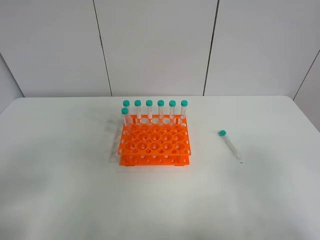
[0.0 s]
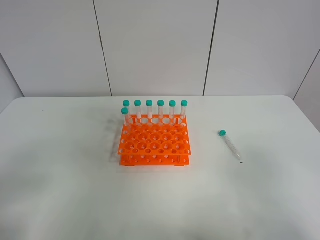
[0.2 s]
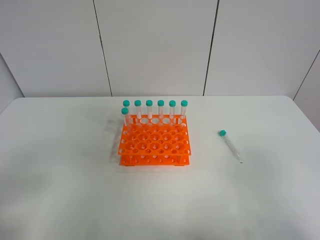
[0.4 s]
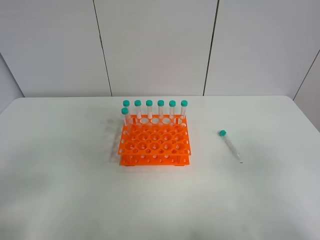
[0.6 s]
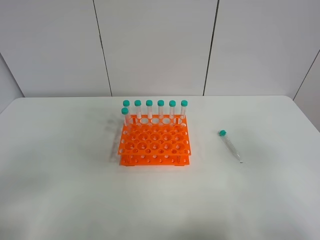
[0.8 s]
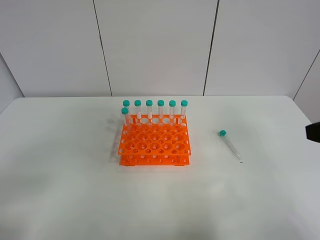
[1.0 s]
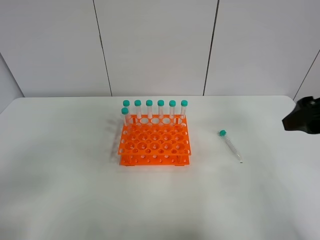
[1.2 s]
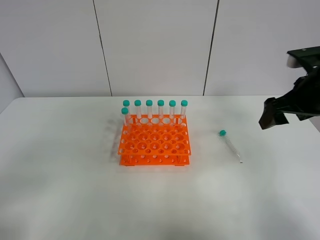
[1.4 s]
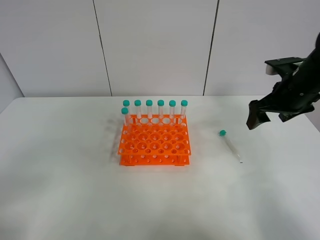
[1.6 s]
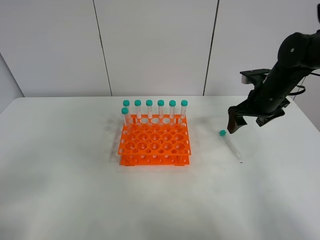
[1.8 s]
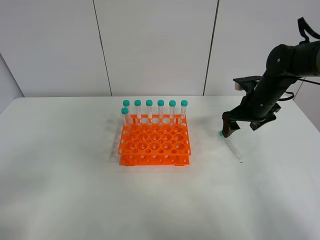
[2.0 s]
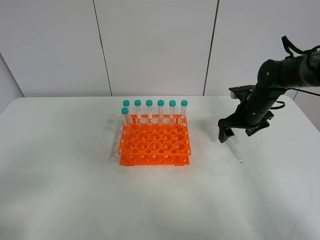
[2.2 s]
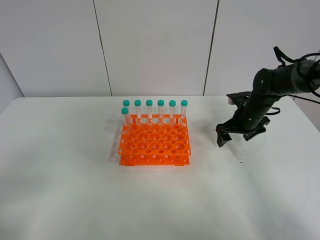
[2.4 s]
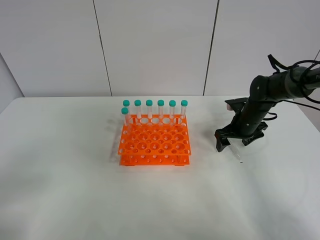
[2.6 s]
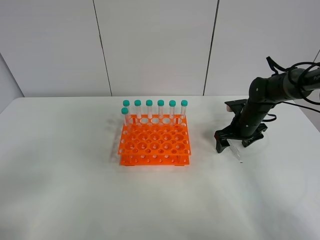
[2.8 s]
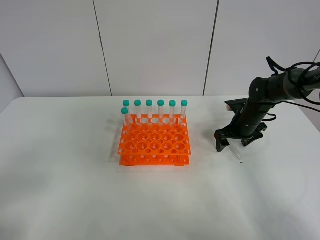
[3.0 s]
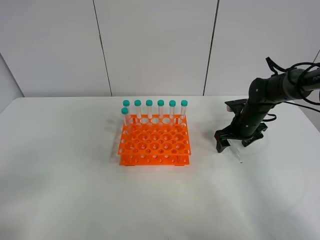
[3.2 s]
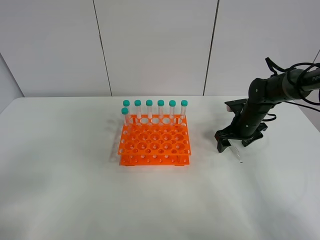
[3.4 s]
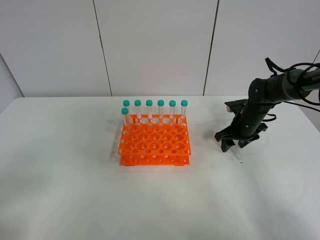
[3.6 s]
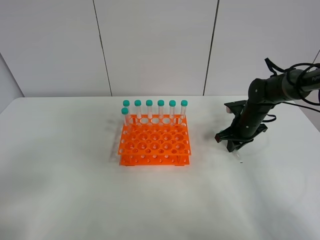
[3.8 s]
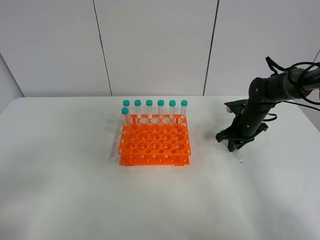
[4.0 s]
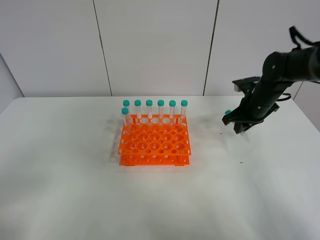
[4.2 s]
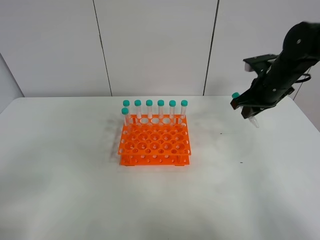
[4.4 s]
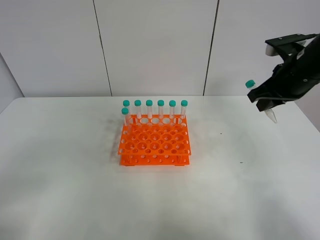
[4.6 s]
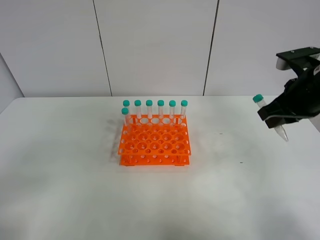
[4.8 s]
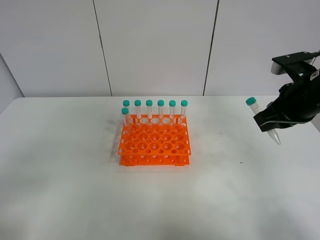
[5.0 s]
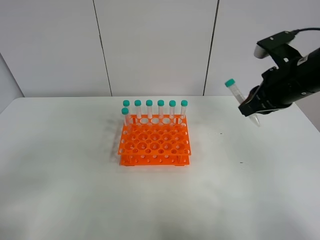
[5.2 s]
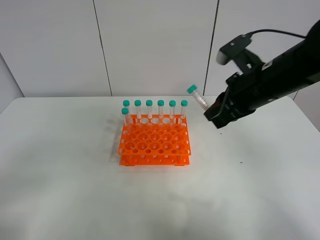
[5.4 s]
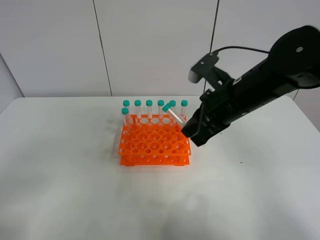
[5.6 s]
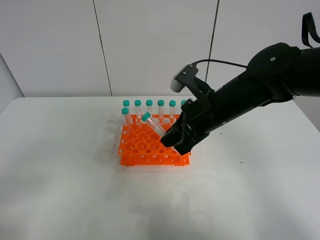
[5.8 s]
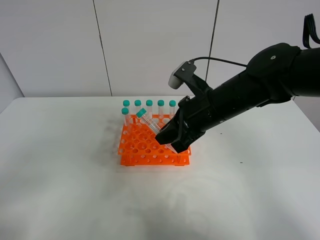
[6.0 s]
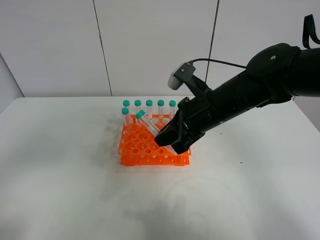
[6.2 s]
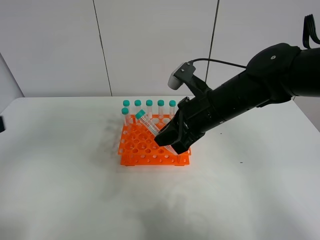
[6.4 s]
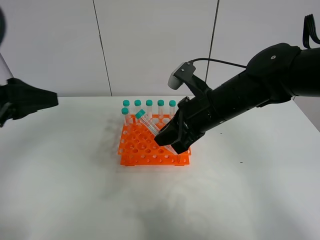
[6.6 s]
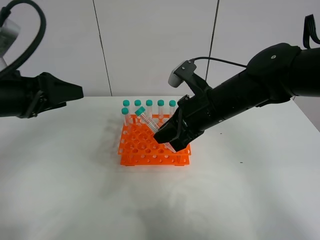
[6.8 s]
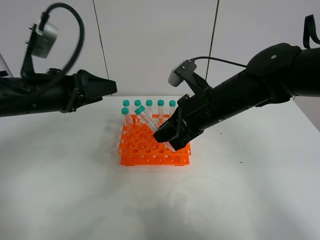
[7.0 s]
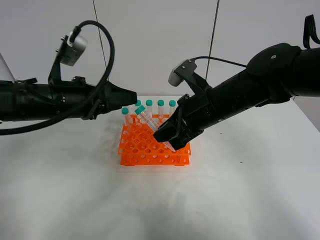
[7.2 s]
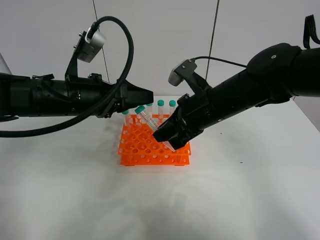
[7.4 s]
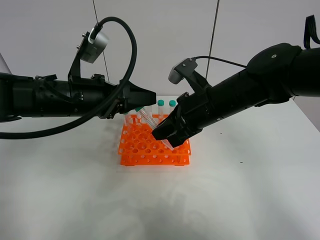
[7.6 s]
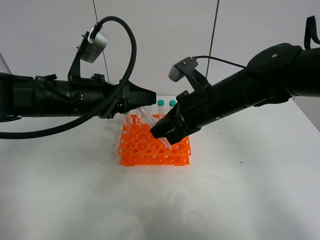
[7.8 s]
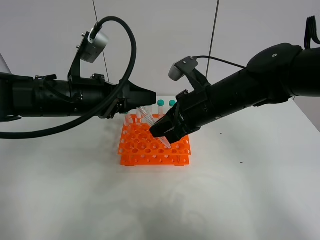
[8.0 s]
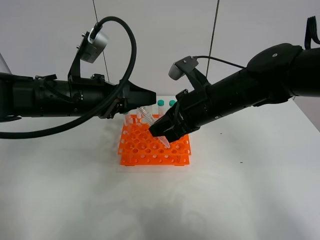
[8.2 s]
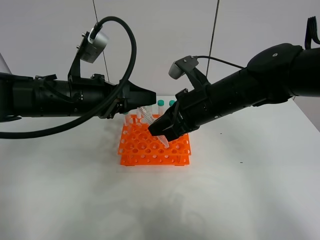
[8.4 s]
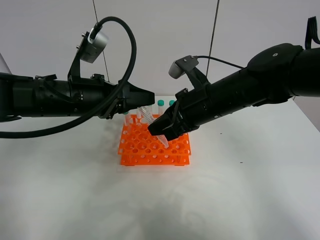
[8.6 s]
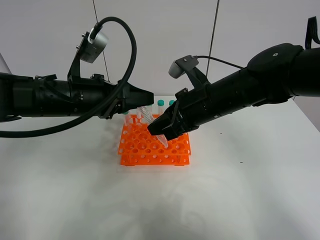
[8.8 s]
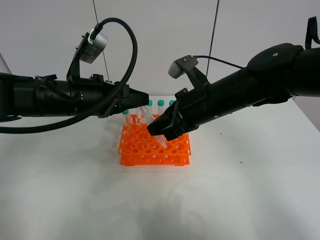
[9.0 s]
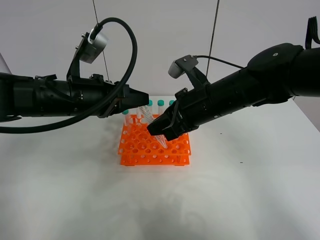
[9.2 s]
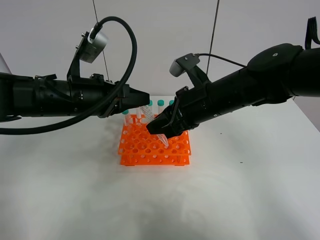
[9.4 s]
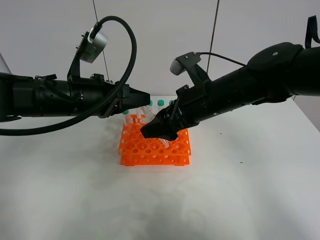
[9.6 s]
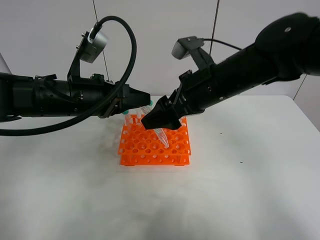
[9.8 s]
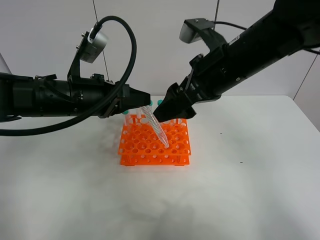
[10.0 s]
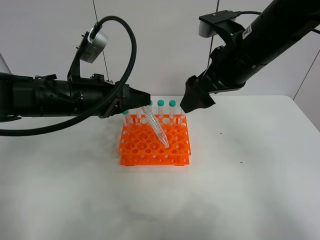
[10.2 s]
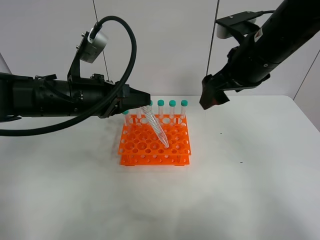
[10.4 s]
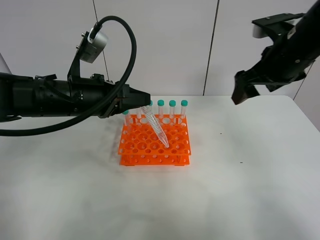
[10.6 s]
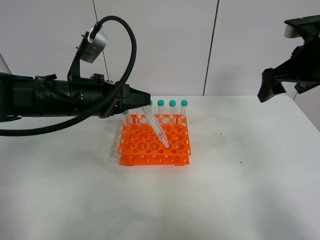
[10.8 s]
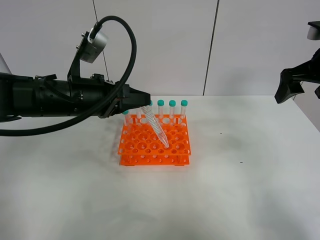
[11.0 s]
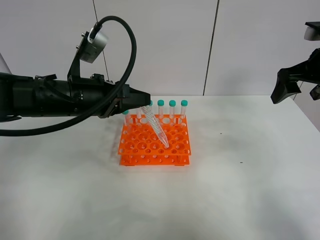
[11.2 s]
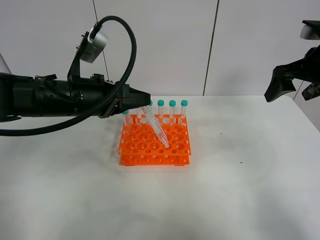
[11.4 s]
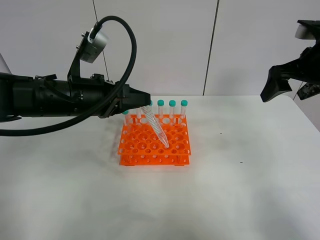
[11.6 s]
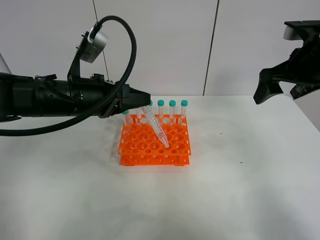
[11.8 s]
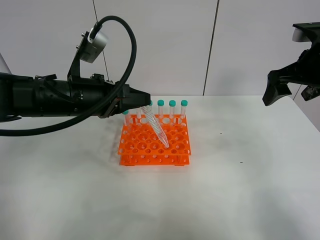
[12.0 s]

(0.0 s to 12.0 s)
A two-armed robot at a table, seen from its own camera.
Task of the whole recording: Put the test tube on the table back onto the test tube rack.
Step, 0.0 s - 4.0 s: Pick up the test tube with the right gripper.
Step, 4.2 s - 9.6 s: Move the test tube from the right gripper to the left gripper.
0.0 s - 1.6 s: The right gripper goes about 35 cm forward.
1.6 s - 3.0 s: The right gripper travels downward and forward by some 15 cm.
3.0 s - 4.4 s: The right gripper shifts some 15 cm upward, and closes.
4.4 s - 6.0 s: The right gripper moves to the left and backward, some 20 cm.
6.0 s - 7.6 s: The left gripper is displaced forward and to the right by approximately 30 cm.
7.6 s - 9.0 s: The left gripper closes up.
9.0 s - 10.4 s: The right gripper is displaced upward and to the right by about 10 cm, and opens its fingers.
10.4 s - 12.0 s: The right gripper shifts some 10 cm to the right.

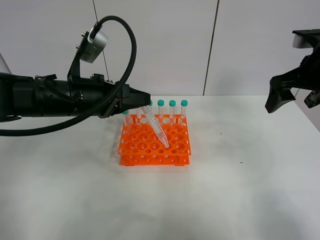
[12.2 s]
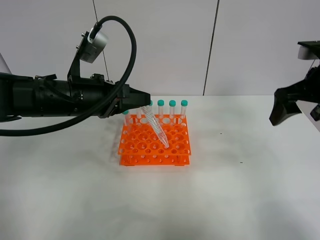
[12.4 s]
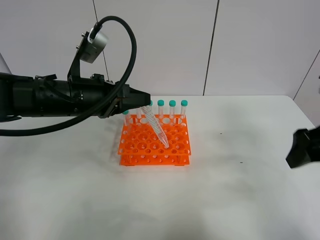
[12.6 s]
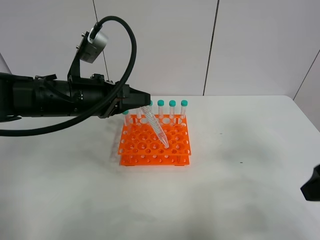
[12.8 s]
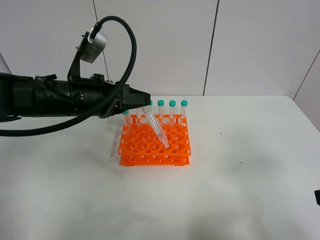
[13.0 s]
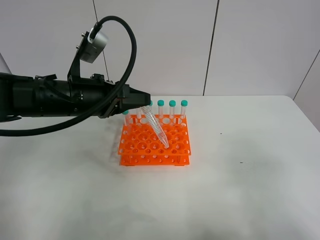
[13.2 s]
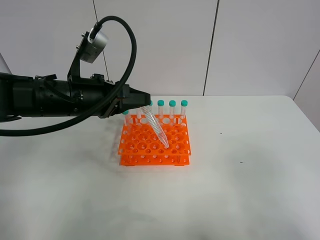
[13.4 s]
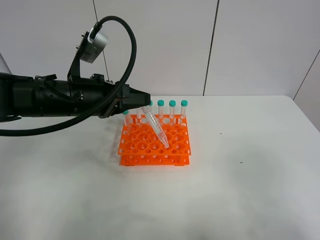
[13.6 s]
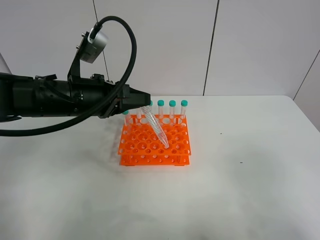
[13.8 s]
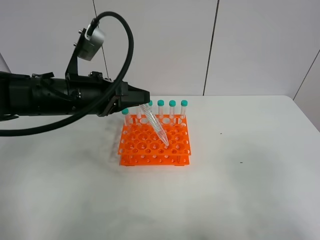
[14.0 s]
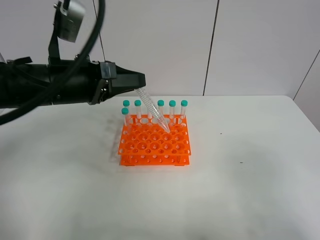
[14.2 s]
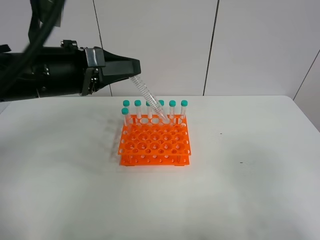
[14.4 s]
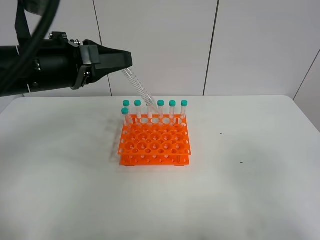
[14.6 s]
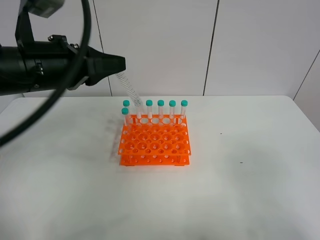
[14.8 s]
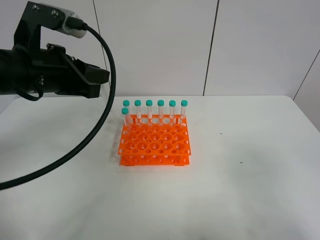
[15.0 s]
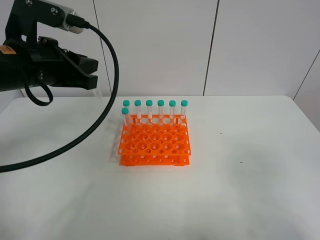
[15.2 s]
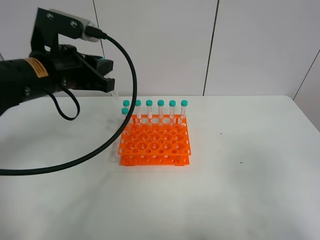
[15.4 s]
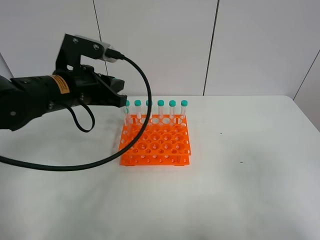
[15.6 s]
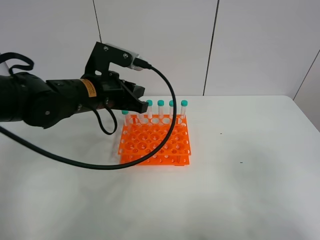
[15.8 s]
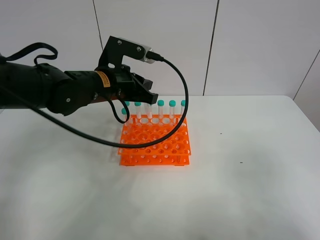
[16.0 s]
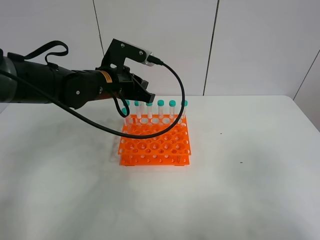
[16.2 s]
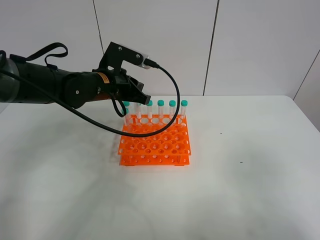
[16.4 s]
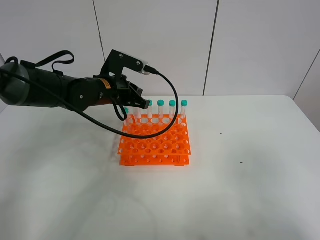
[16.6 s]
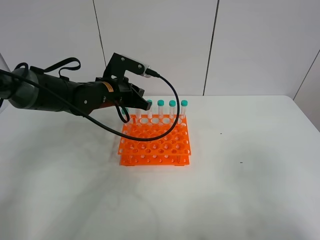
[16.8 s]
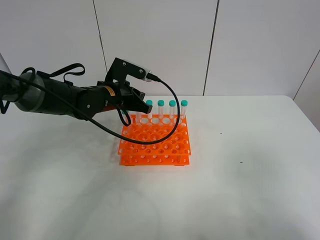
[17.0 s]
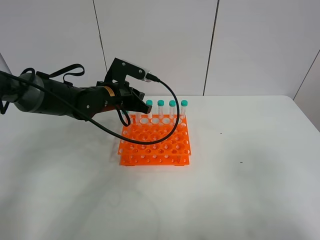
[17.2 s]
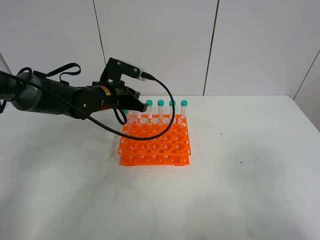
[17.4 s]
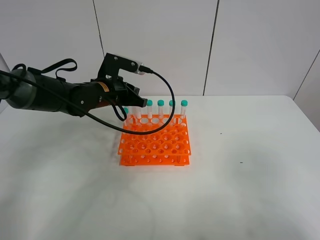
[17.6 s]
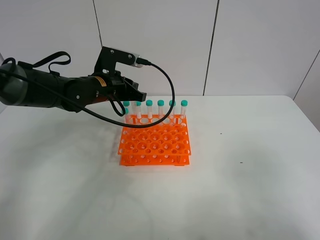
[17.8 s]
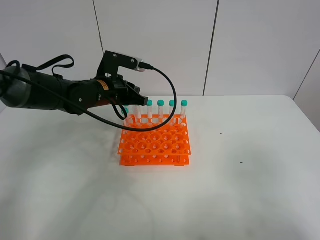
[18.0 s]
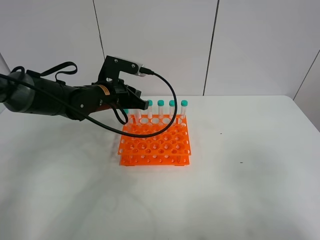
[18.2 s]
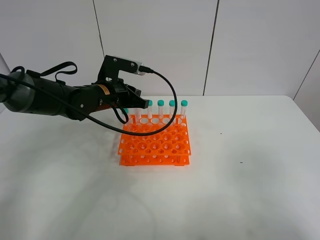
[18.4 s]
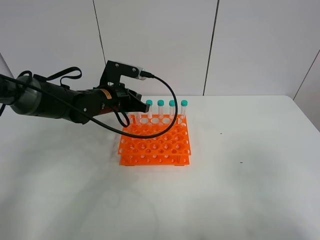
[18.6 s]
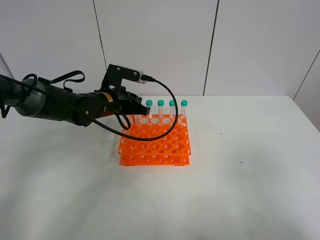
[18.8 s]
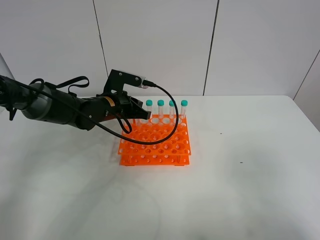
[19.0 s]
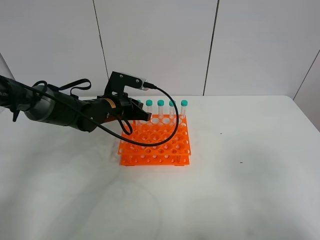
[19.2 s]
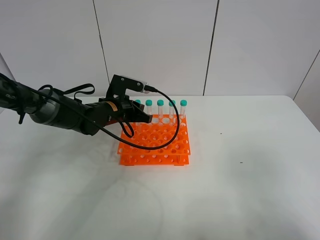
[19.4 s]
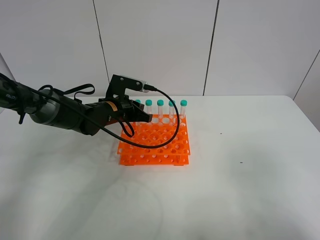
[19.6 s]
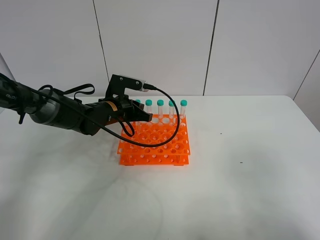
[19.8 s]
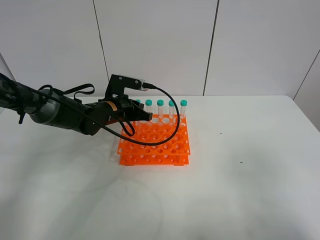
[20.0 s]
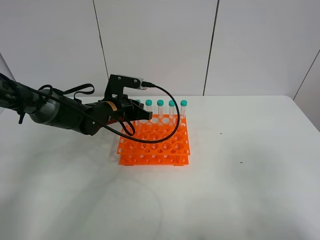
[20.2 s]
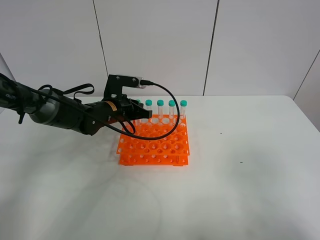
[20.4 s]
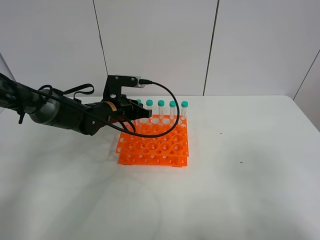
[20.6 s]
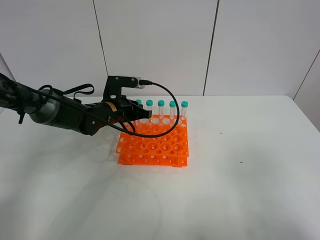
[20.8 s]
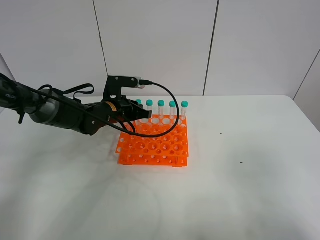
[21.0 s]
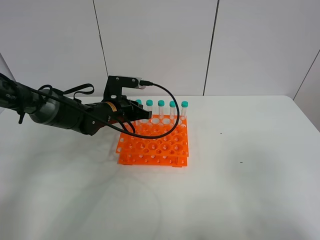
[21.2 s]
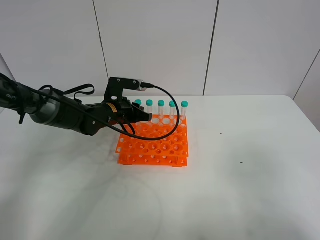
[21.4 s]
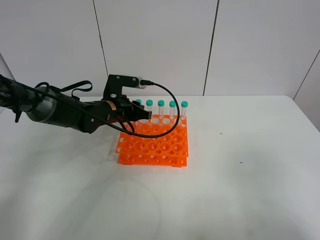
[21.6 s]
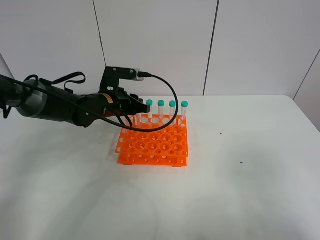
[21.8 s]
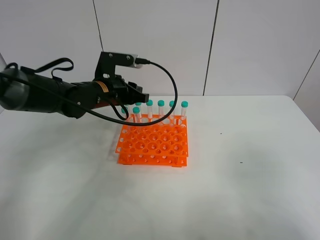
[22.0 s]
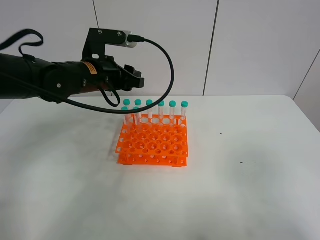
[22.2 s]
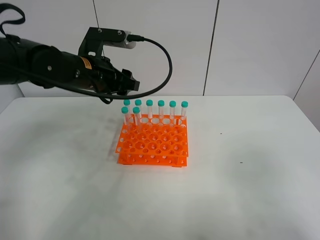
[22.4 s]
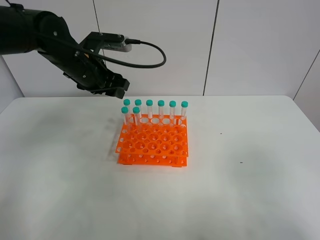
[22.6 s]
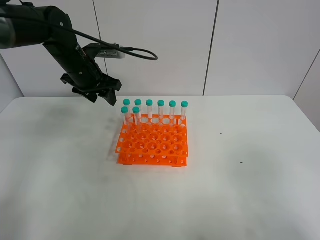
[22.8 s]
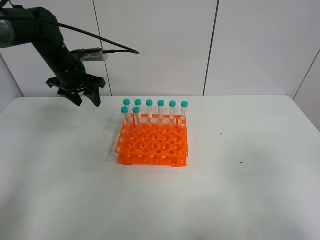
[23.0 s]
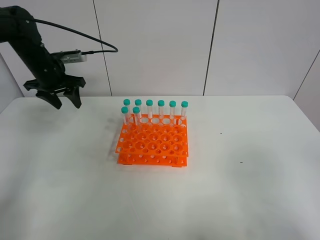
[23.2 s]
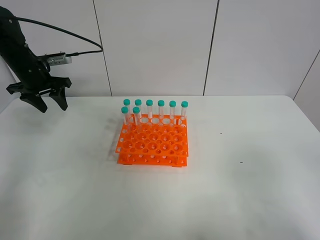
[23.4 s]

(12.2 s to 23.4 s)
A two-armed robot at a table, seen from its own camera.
Task of the whole recording: Put the test tube on the table back onto the test tube rack.
Step, 12.2 s - 21.6 s: Place the test tube on the test tube rack with the left gripper.
12.2 s - 13.8 s: The right gripper moves backward, some 30 cm.
15.4 s - 17.0 s: The left gripper goes approximately 15 cm forward, downward and to the right.
17.0 s - 20.2 s: The grippers make only small movements.
20.2 s - 21.8 s: The left gripper opens up.
21.8 s - 23.4 s: The left gripper moves to the left, about 20 cm, and opens its fingers.
